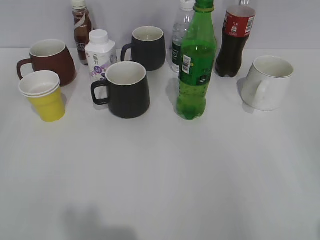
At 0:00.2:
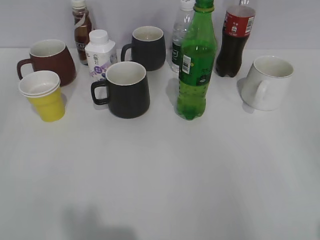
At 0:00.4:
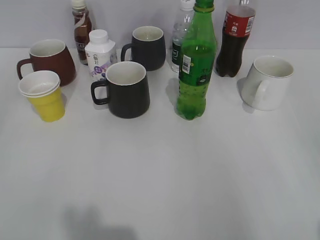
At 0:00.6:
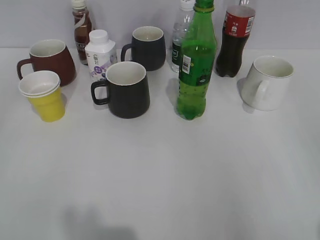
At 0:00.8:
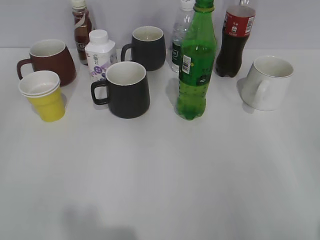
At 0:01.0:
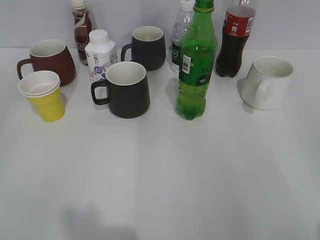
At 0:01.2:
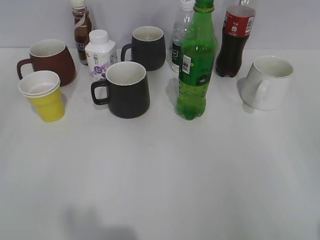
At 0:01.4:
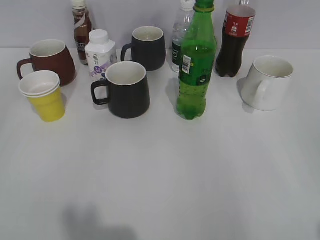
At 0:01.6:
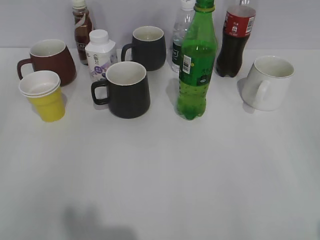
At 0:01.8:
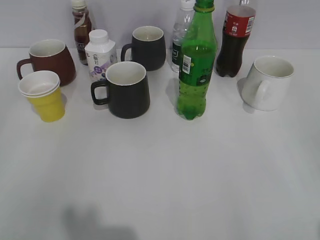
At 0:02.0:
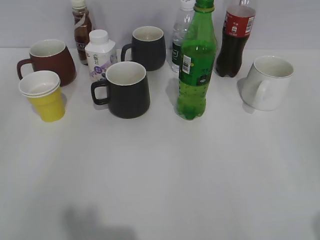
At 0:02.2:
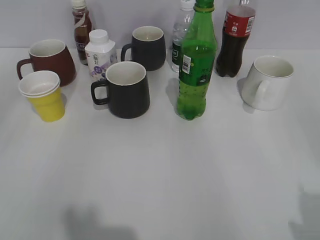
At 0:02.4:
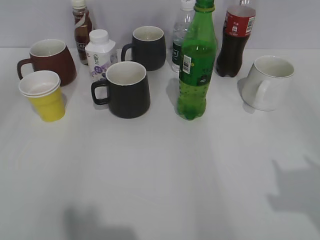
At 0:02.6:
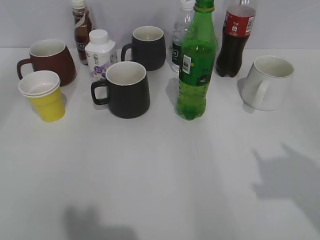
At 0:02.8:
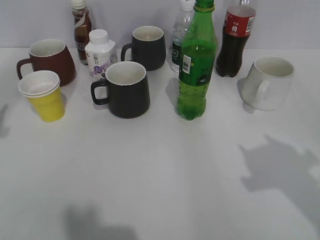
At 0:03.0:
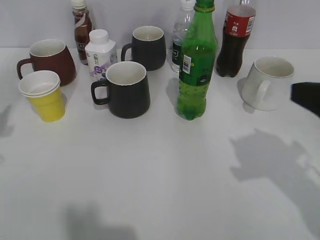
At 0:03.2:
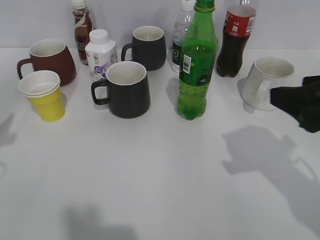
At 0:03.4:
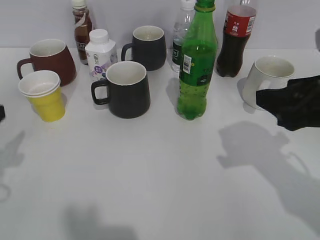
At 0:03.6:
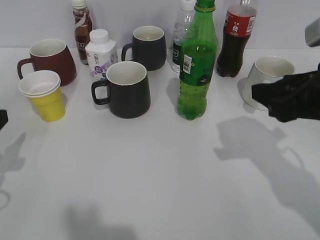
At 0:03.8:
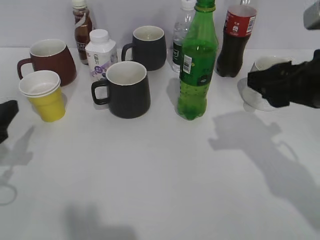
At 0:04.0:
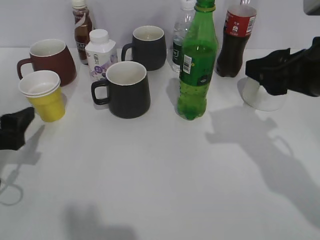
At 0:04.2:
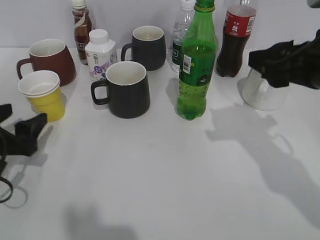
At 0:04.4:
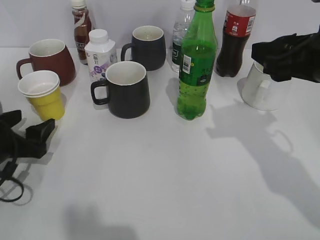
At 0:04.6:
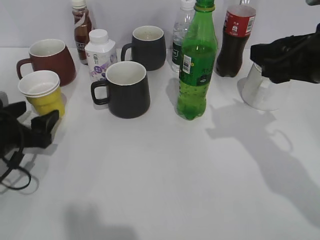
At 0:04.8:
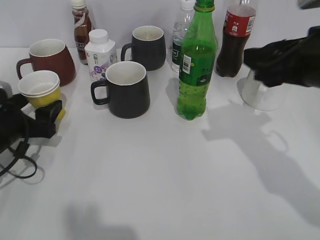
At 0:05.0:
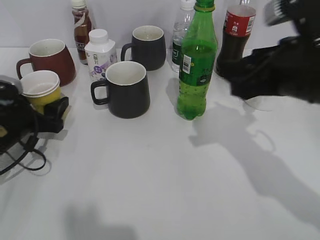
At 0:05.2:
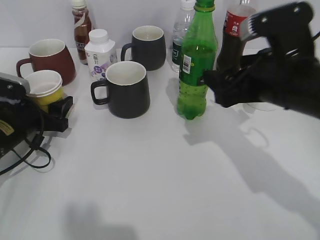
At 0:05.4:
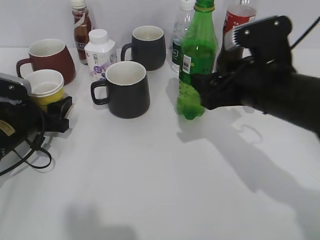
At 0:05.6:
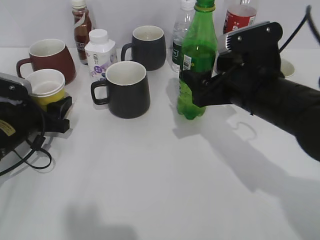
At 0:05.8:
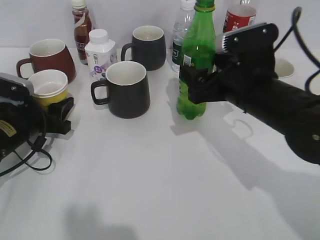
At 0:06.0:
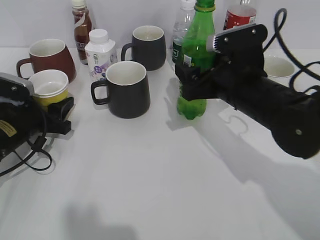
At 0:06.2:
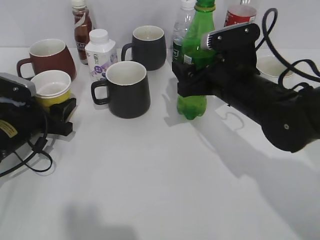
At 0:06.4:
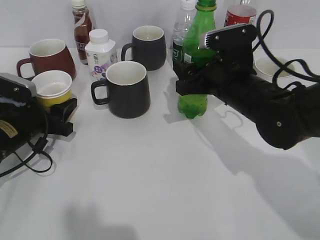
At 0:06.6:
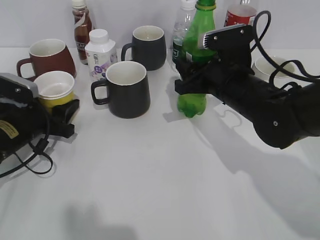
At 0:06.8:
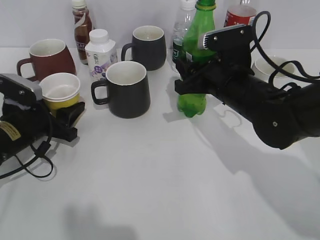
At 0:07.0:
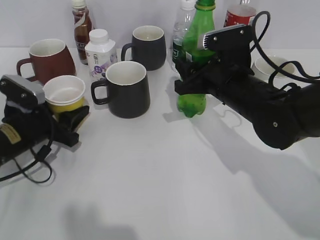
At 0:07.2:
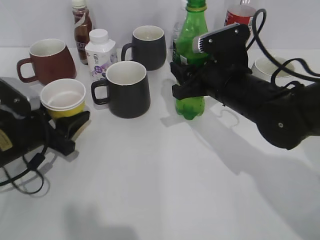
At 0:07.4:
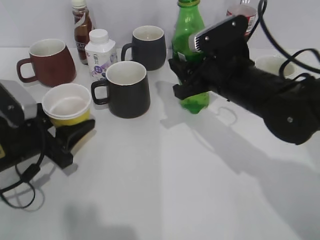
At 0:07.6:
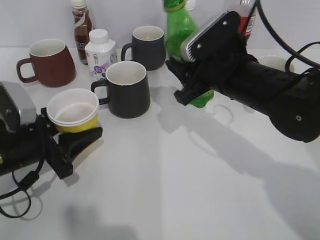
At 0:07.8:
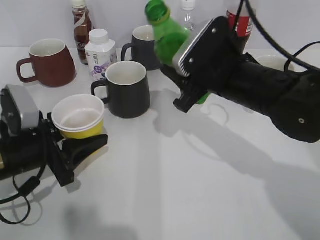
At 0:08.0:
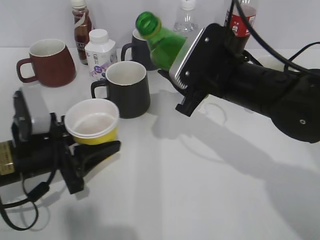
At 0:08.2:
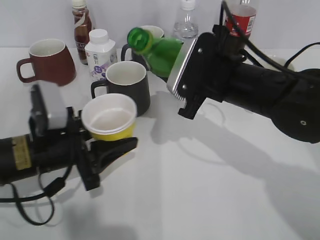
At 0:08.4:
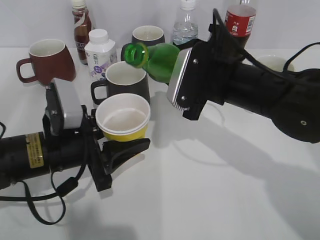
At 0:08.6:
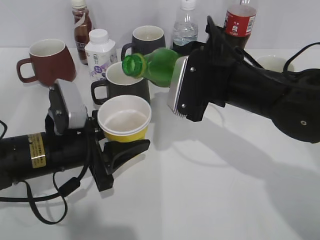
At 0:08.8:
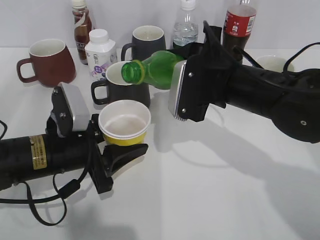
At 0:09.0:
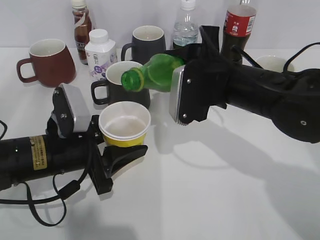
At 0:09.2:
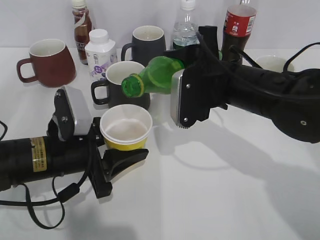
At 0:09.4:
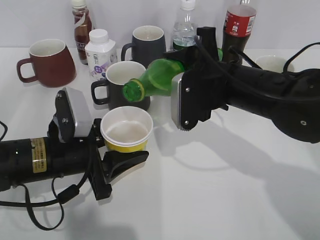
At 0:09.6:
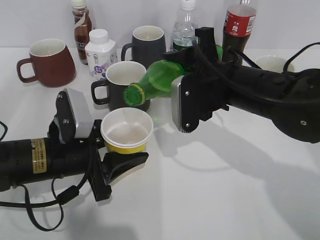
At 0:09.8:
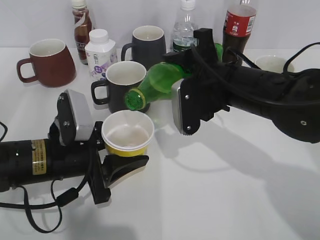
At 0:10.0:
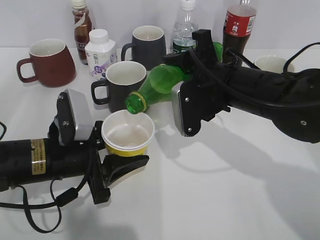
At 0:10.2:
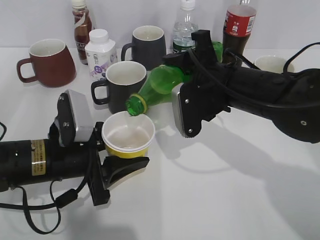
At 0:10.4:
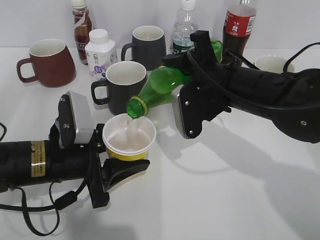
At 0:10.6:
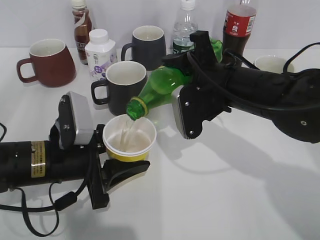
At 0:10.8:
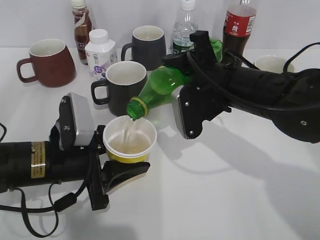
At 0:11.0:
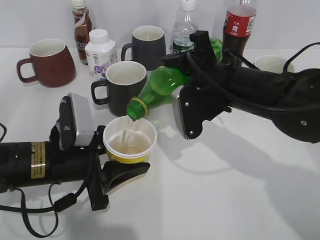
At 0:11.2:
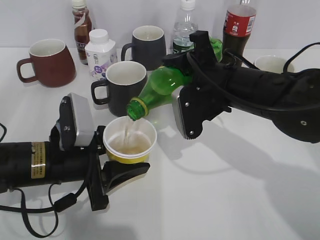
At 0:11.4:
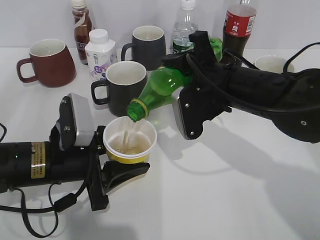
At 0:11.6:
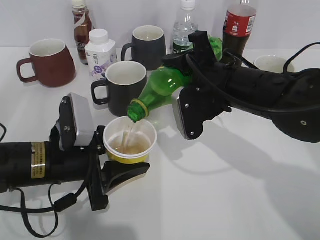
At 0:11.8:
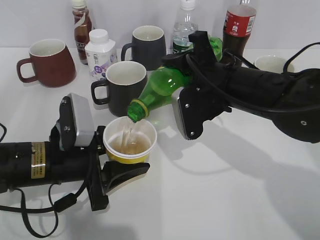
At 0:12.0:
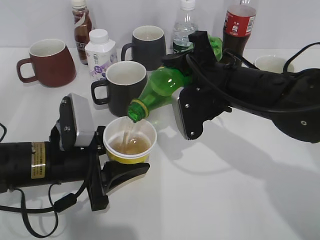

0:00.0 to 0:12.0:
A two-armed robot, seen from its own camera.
Step, 0:02.0 to 0:06.6: Grasp the bottle with sprite with right gripper.
0:01.6 to 0:03.0: The right gripper travels forward by approximately 15 cm.
0:03.0 to 0:04.4: The left gripper travels downward by some 15 cm. Meanwhile the right gripper heads forward, covering approximately 10 cm.
0:04.4 to 0:06.0: The left gripper goes approximately 5 cm forward, and closes. Meanwhile the right gripper moves downward, to the left and forward, about 15 cm, and opens up.
0:06.0 to 0:07.6: The right gripper closes its fingers. The left gripper shifts some 5 cm backward.
0:07.6 to 0:09.0: The left gripper heads to the right, covering some 5 cm.
0:09.0 to 0:10.4: The grippers stay close to where they were, moving slightly.
0:10.4 to 0:12.0: Neither gripper changes place.

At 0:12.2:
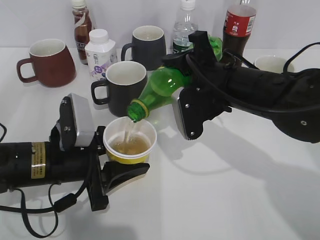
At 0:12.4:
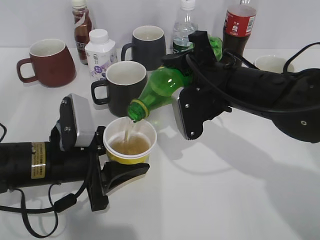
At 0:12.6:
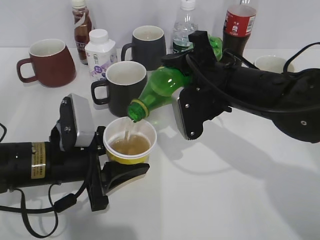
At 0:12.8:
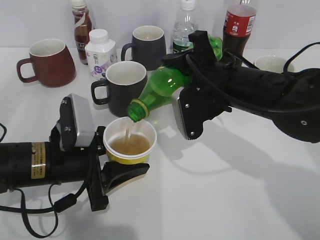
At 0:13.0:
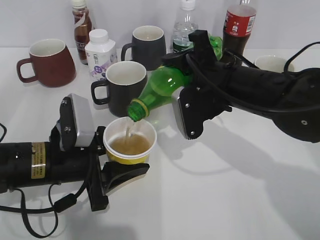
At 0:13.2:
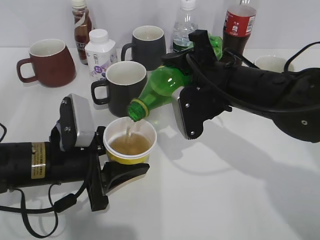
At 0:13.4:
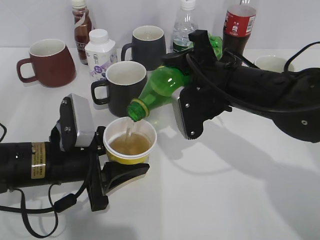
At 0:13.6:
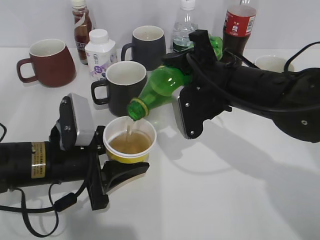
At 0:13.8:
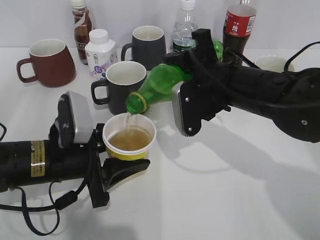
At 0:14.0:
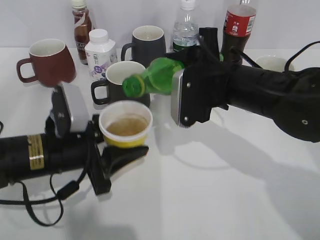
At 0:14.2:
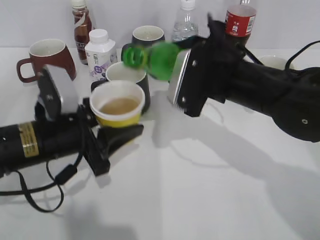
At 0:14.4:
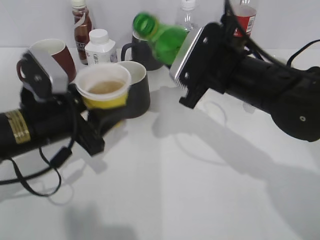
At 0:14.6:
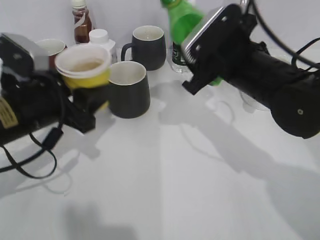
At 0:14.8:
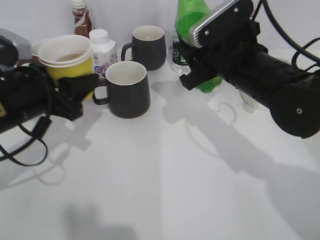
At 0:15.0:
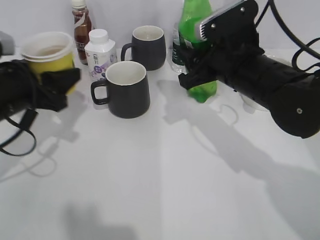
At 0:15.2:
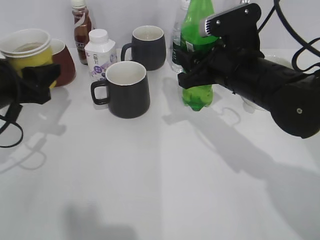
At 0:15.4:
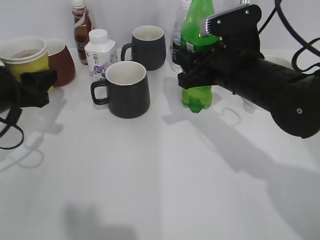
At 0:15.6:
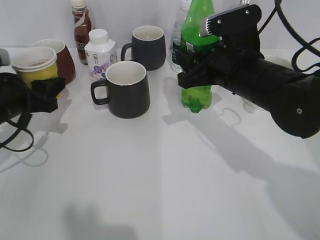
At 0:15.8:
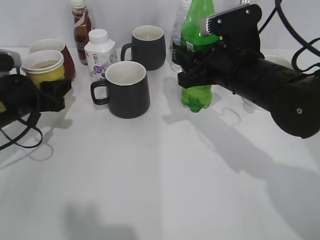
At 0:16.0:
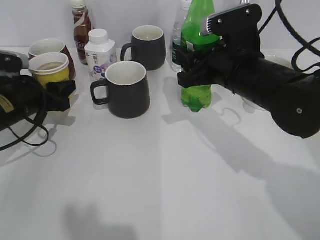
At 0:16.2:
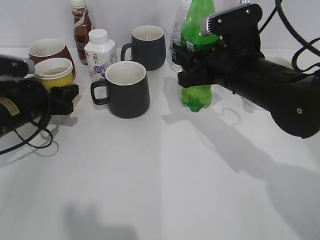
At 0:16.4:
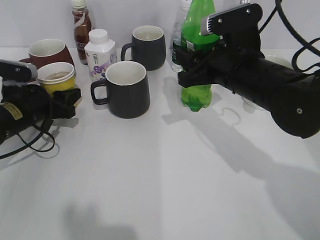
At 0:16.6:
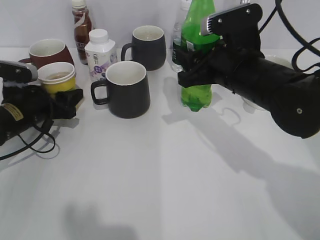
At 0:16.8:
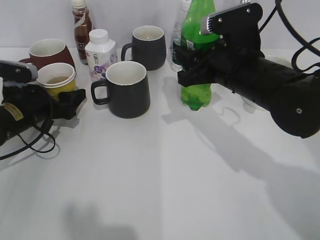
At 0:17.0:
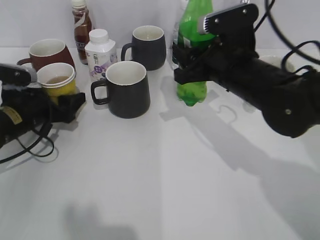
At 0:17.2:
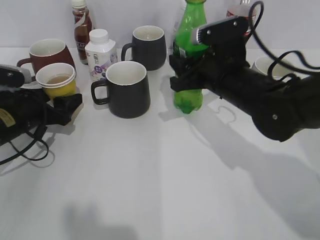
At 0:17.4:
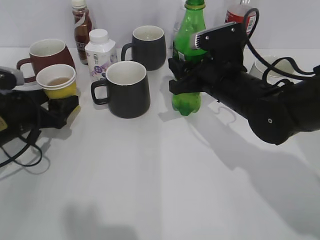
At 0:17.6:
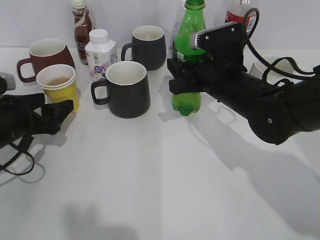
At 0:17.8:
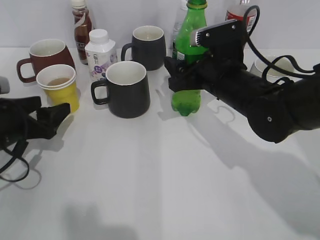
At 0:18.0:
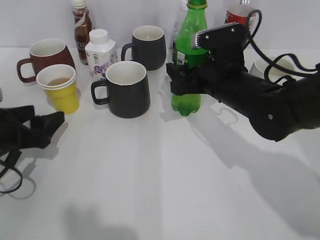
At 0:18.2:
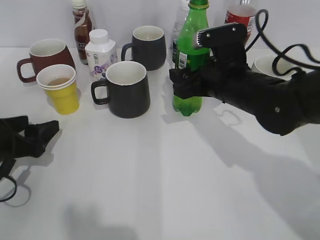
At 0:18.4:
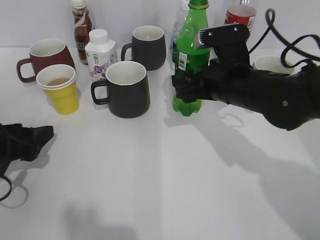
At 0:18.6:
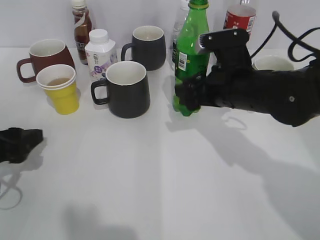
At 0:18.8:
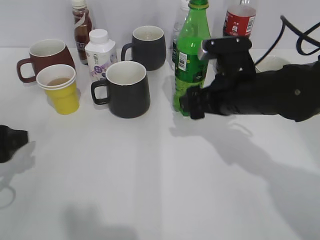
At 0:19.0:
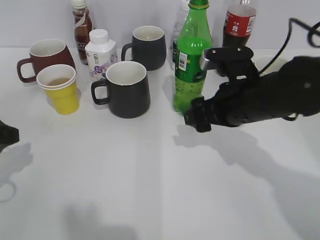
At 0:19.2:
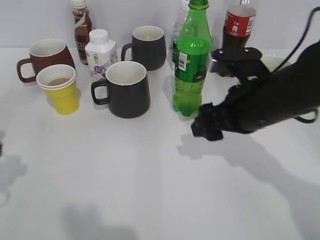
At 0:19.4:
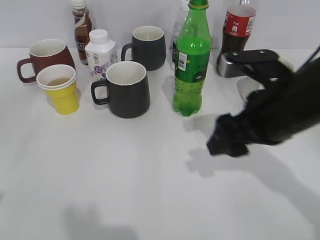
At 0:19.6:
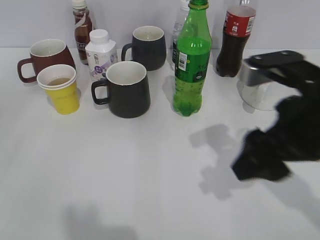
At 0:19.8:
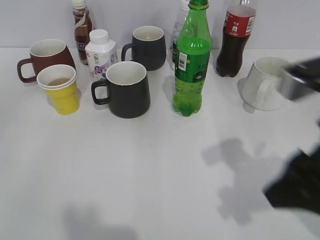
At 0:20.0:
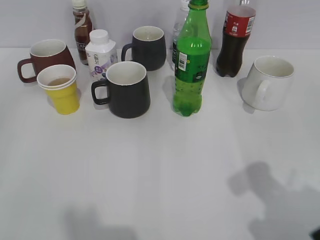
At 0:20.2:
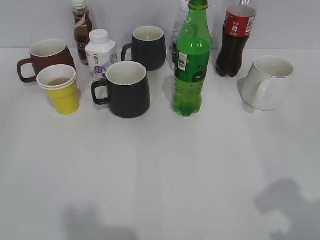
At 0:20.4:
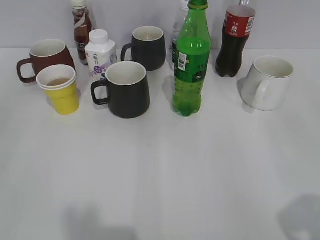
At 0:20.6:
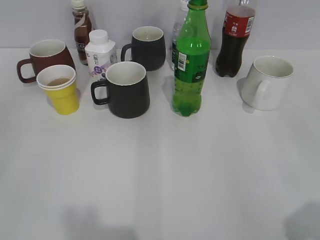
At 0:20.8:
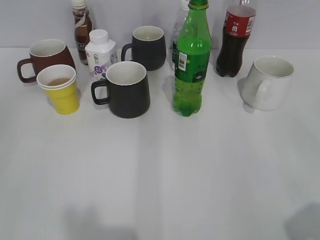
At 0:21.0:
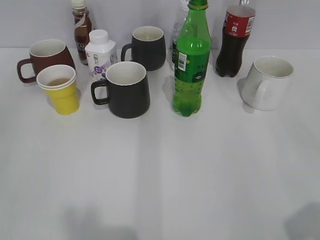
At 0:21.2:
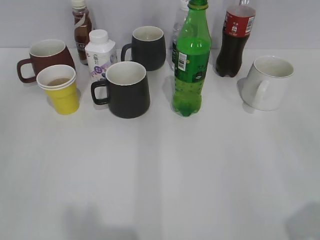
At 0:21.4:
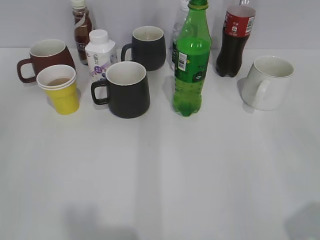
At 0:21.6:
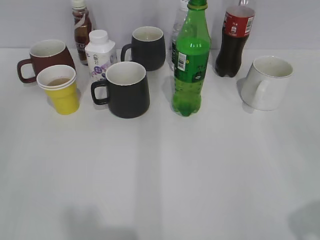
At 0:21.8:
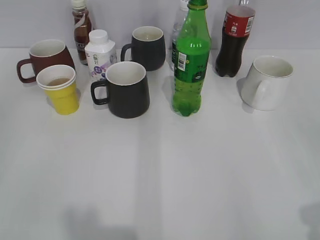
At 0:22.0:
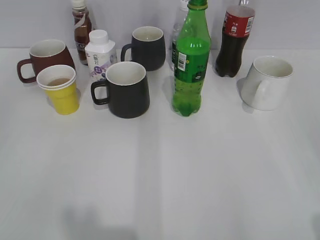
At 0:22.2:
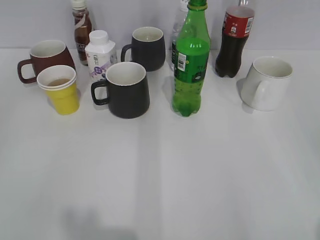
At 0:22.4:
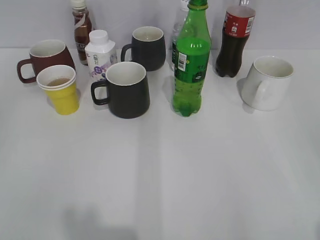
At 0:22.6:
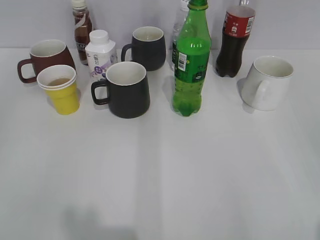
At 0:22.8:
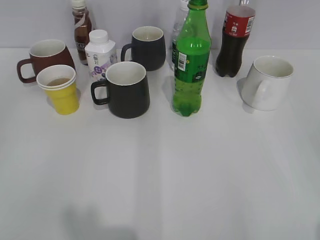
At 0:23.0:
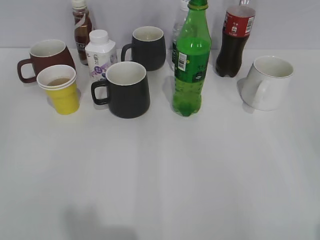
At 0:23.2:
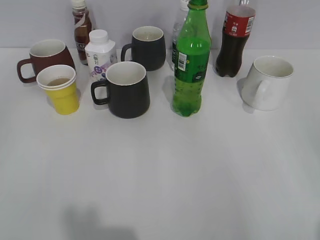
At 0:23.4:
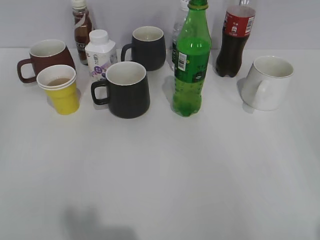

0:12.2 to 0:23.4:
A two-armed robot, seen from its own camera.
Step, 0:12.2 to 0:14.4: Pour the sprite from bottle to cup with right gripper.
Step, 0:14.6 to 0:16.0: Place the yellow paper cup on the table with left gripper.
Step, 0:16.2 to 0:18.8: Place the sprite bottle on the table with right gripper.
0:12.2 to 0:13.8: The grippers stay close to where they were, moving slightly.
0:13.8 to 0:15.4: The left gripper goes about 15 cm to the left, forward and upward.
0:15.4 to 0:17.0: The left gripper goes approximately 10 cm downward, and opens its fingers.
0:17.0 to 0:18.6: The left gripper is displaced backward by some 10 cm, while the right gripper opens its fingers.
0:18.6 to 0:20.2: The left gripper goes approximately 25 cm backward and upward, while the right gripper travels backward, to the right and upward by some 30 cm.
0:20.2 to 0:21.8: The right gripper ends up about 5 cm from where it was.
